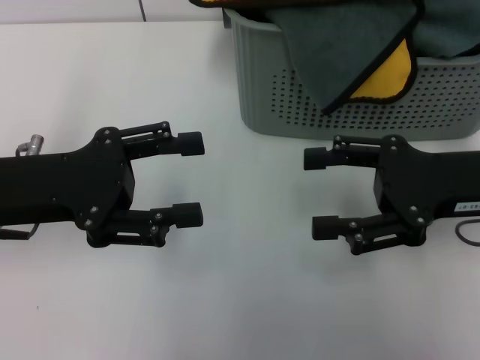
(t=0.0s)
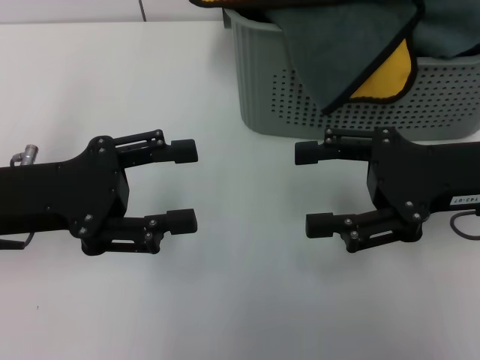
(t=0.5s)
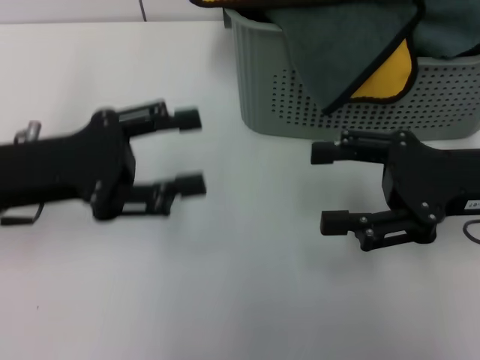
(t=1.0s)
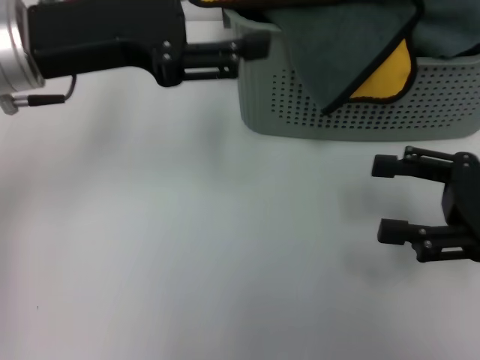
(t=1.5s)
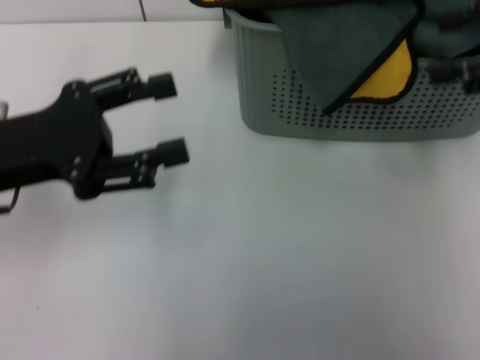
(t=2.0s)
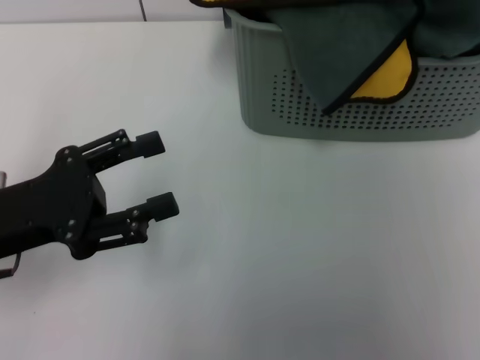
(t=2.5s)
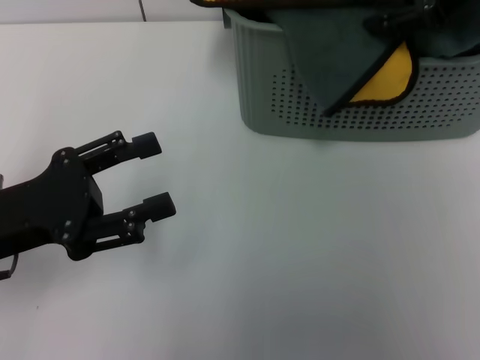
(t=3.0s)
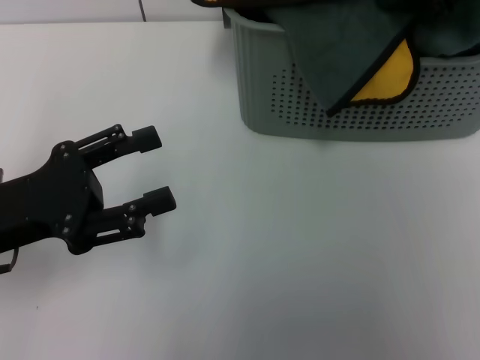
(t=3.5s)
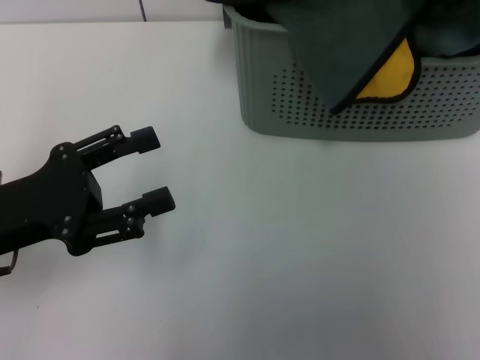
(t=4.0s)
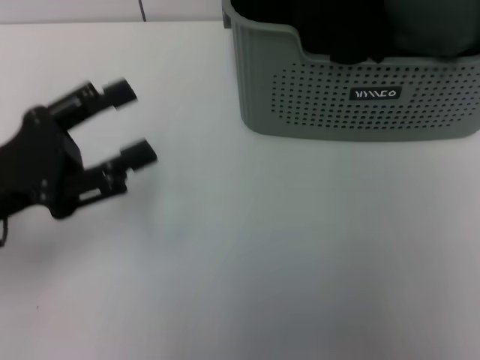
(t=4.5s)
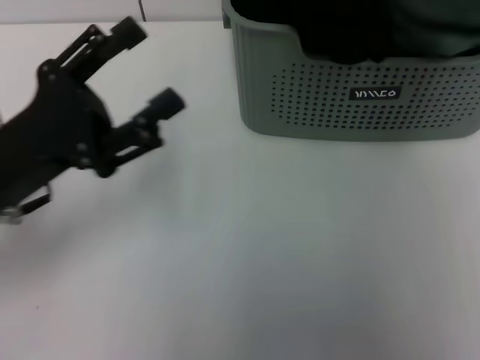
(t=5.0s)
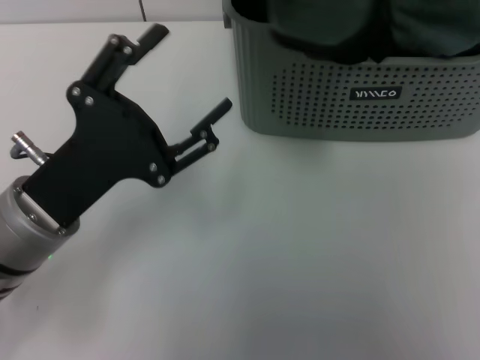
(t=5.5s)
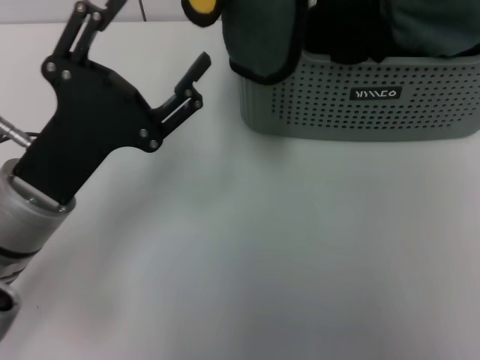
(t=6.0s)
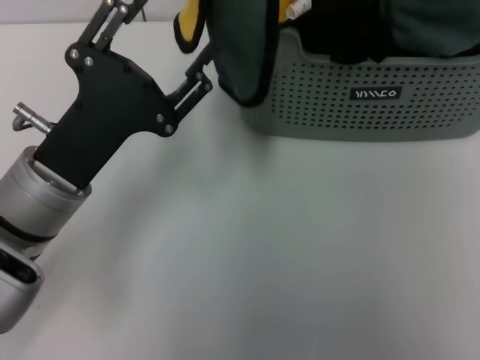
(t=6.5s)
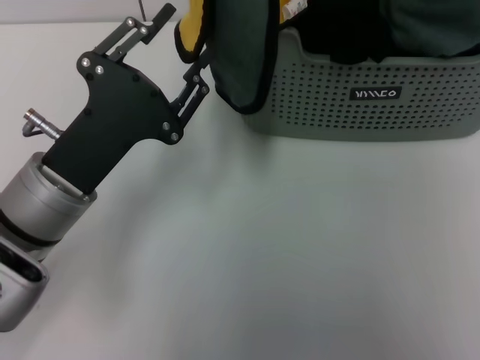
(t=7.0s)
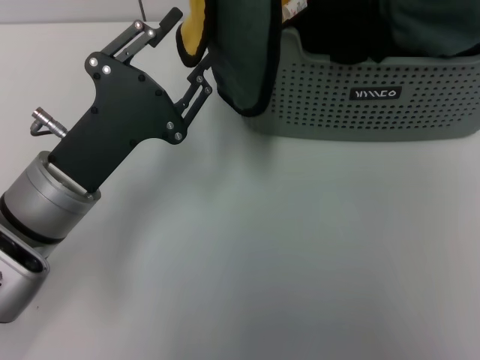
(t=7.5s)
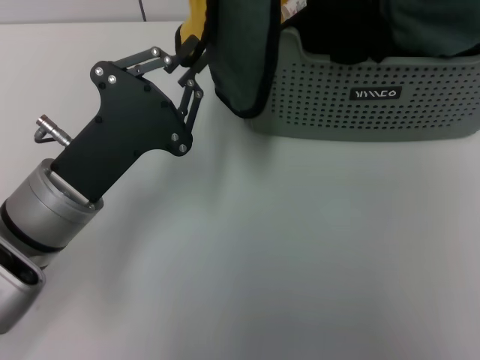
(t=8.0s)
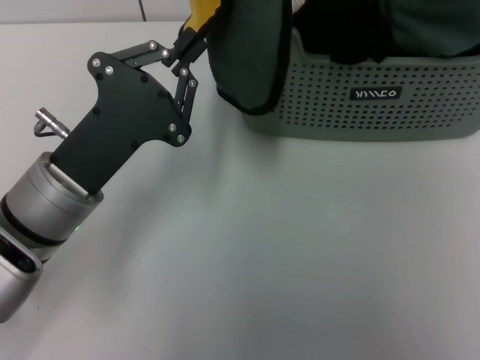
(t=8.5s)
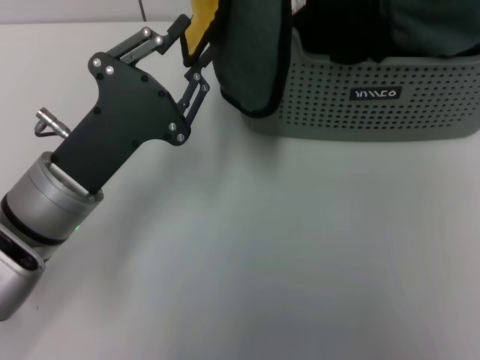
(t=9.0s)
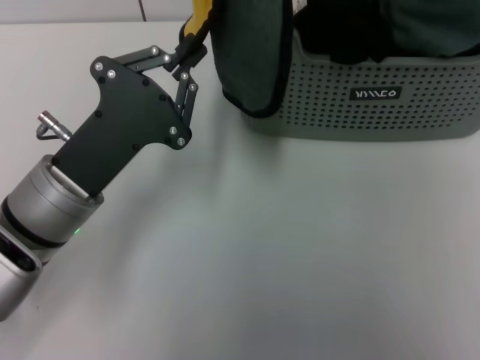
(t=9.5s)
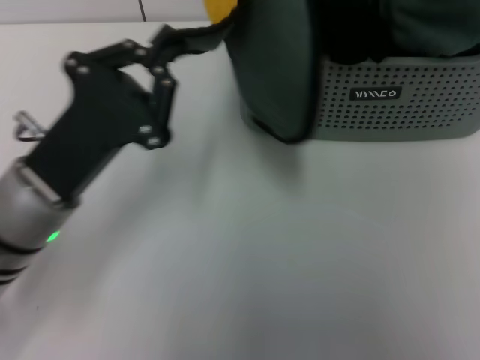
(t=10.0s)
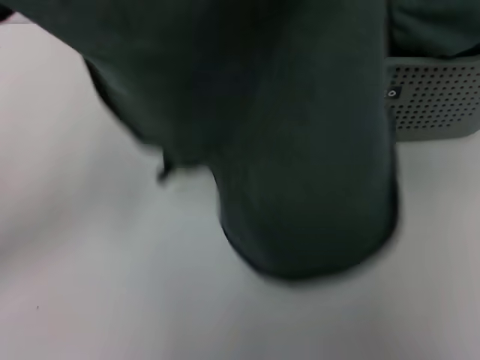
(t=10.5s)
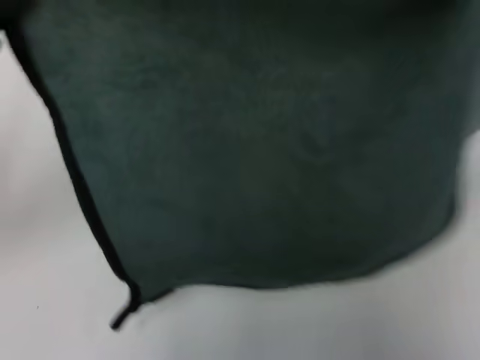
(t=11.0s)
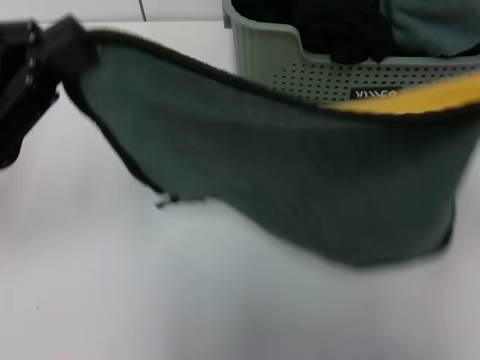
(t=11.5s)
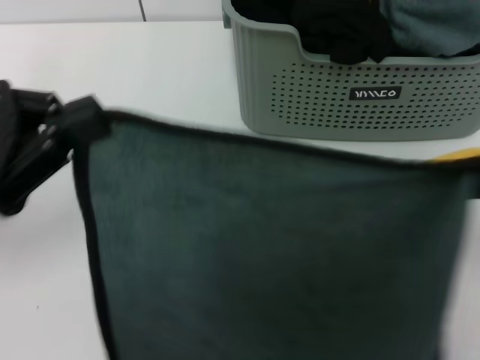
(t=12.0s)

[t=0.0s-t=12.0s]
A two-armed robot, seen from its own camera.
Task of the whole recording: pick up the towel from the storage box and lay it flat on the table.
Step, t=0.0s to t=4.0s: Pick up a towel with the right gripper.
Step, t=4.5s to t=8.0s: Spread the towel flat with the right gripper.
t=0.0s to t=2.0s: The right gripper heads upward and to the right, covering roughly 15 cm. The left gripper reaches roughly 10 cm upward, then returns.
t=2.0s to t=4.0s: The left gripper changes place by about 5 cm, while the right gripper goes some 10 cm forward, and closes up.
t=4.0s to t=6.0s: The right gripper travels upward and to the left by roughly 15 cm; the left gripper travels to the right by approximately 5 cm.
t=6.0s to t=8.0s: The left gripper closes its fingers.
t=8.0s to t=10.0s: The left gripper closes up.
t=10.0s to t=12.0s: The right gripper travels downward, backward and to the right by approximately 25 cm, while the left gripper heads to the left and upward, covering approximately 10 cm.

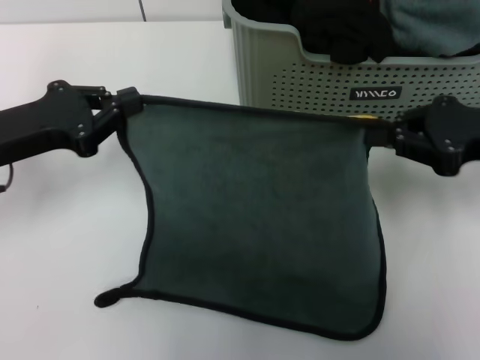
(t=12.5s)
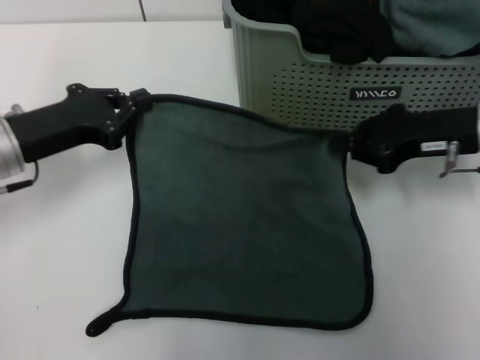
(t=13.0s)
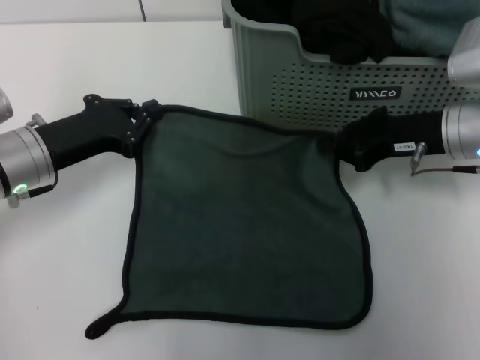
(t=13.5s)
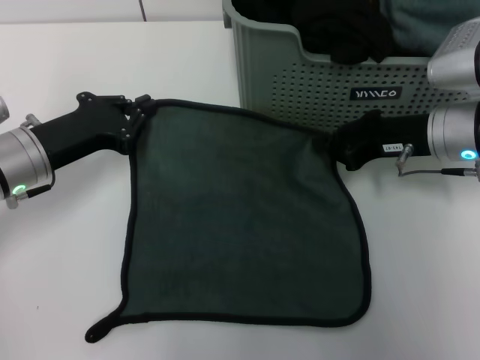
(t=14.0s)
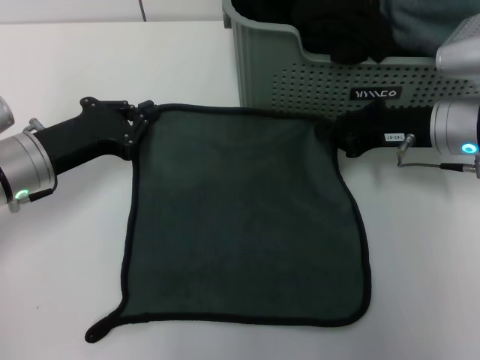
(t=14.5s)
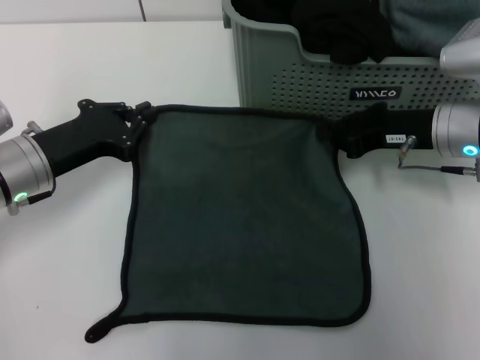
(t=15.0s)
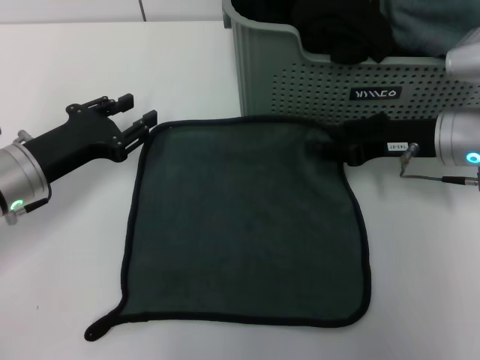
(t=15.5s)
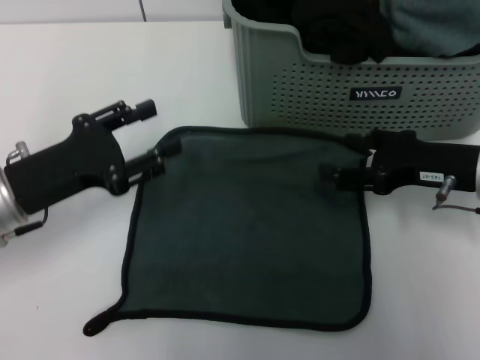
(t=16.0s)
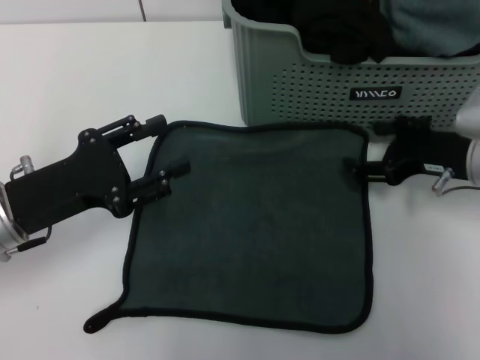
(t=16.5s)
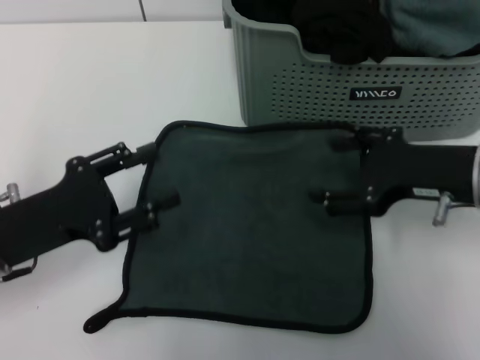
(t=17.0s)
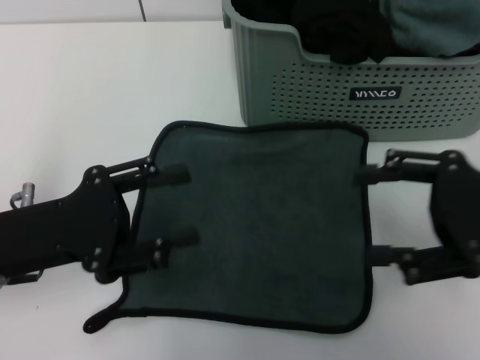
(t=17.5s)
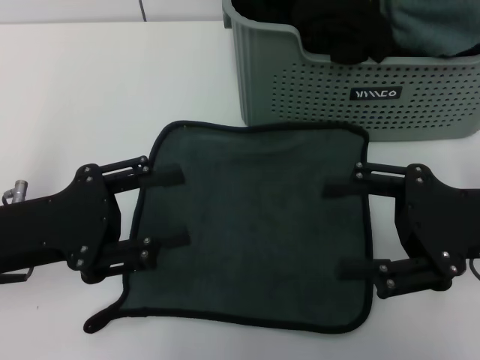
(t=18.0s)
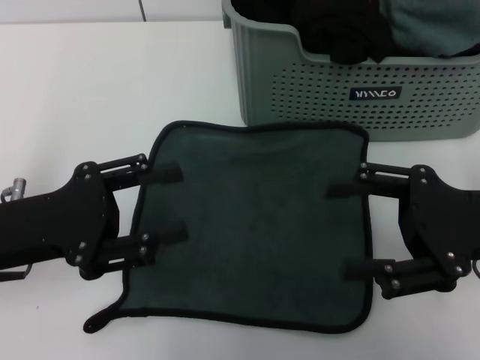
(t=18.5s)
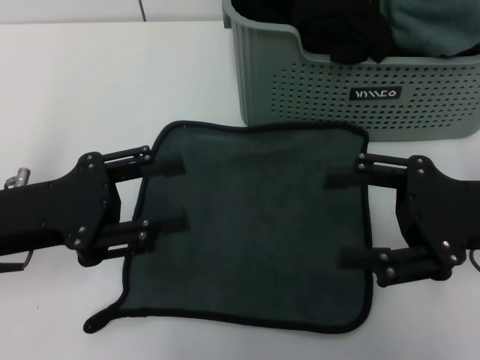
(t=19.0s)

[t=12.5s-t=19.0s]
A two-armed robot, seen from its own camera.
Task of the whole recording: pick up the towel from the storage box and lay it flat on the table.
Step, t=12.5s to t=15.0s: Spread the towel flat with the left gripper.
t=12.5s to t=14.5s: The left gripper moves downward, roughly 5 cm. Meanwhile the right gripper heads to the left, forward and downward, covering about 10 cm.
t=14.5s to t=17.0s: Both grippers travel together backward, about 10 cm. The left gripper opens up; the right gripper opens its fingers.
